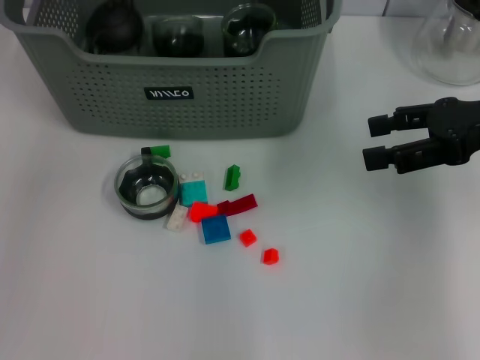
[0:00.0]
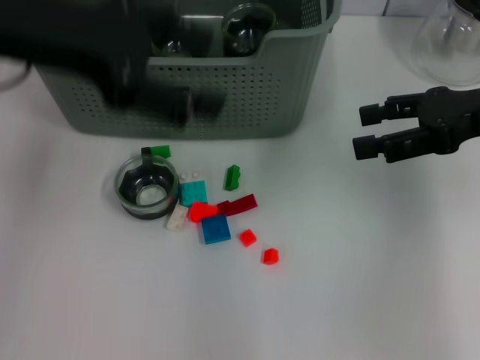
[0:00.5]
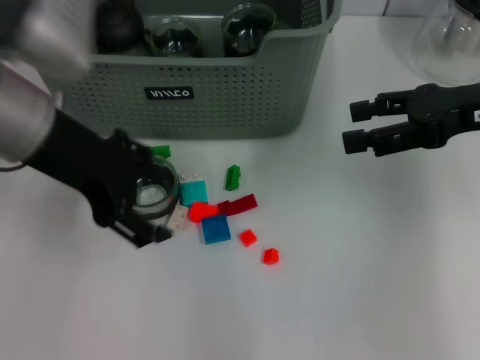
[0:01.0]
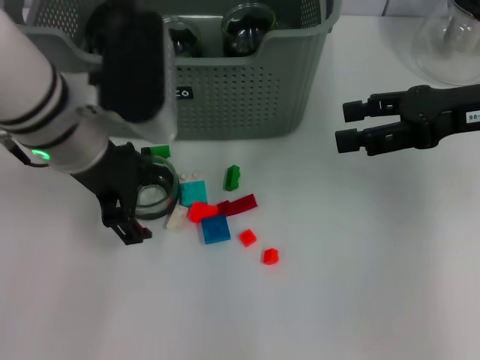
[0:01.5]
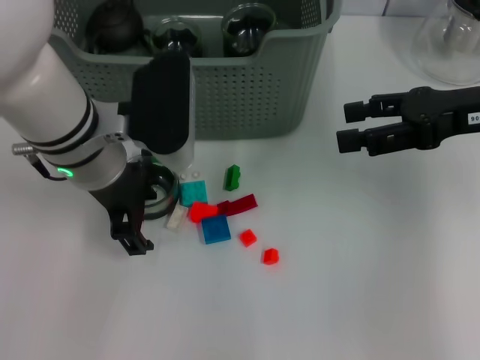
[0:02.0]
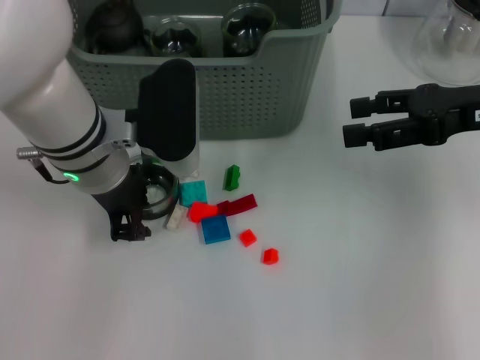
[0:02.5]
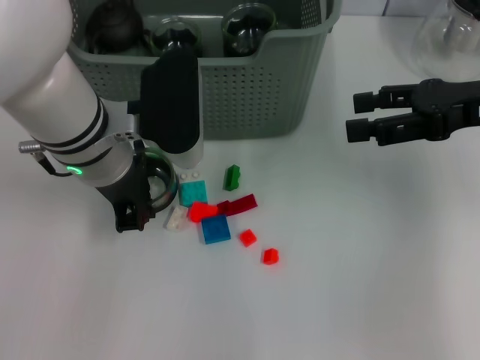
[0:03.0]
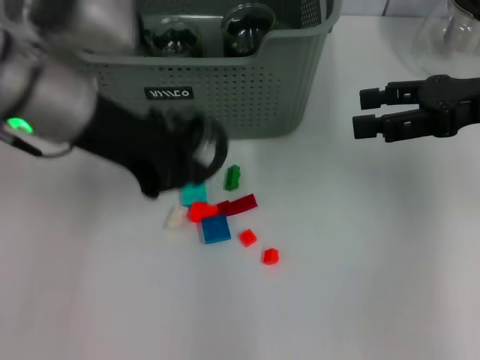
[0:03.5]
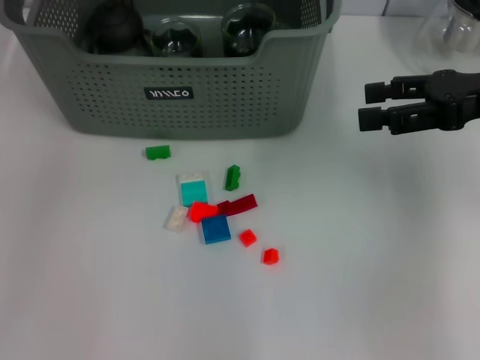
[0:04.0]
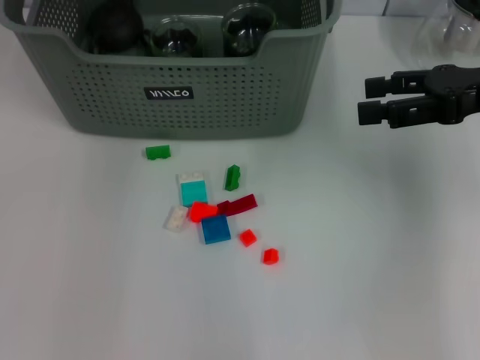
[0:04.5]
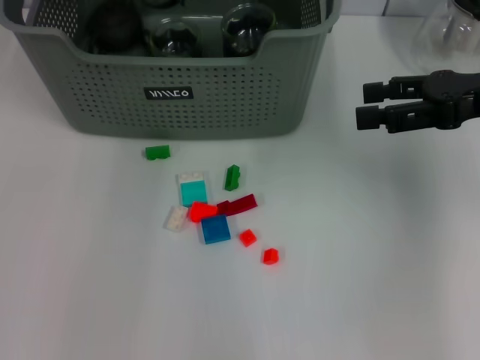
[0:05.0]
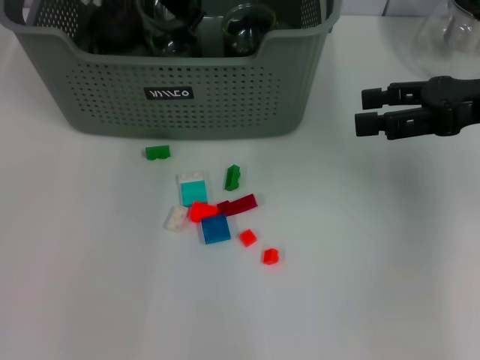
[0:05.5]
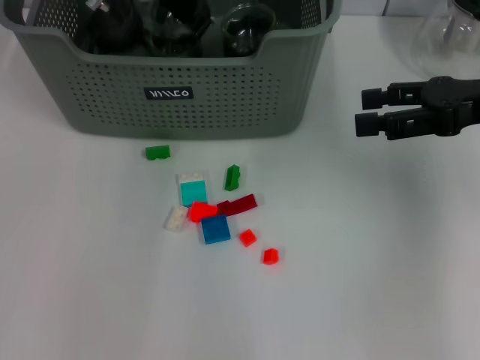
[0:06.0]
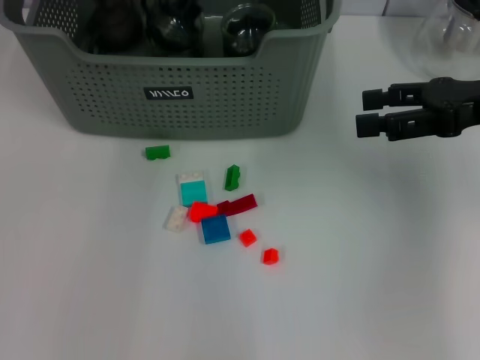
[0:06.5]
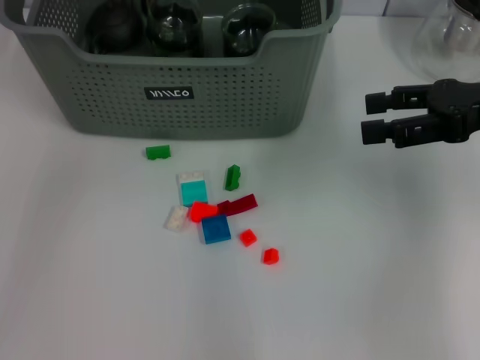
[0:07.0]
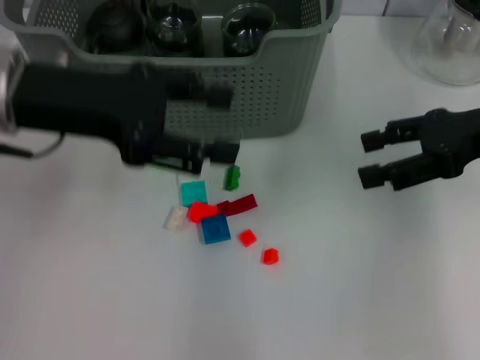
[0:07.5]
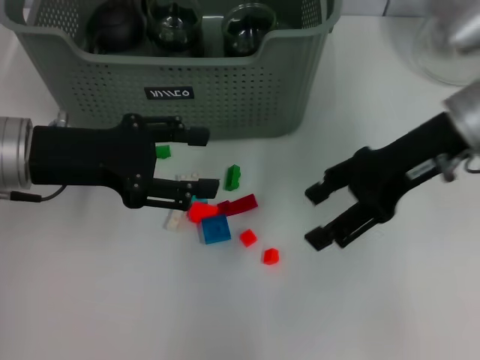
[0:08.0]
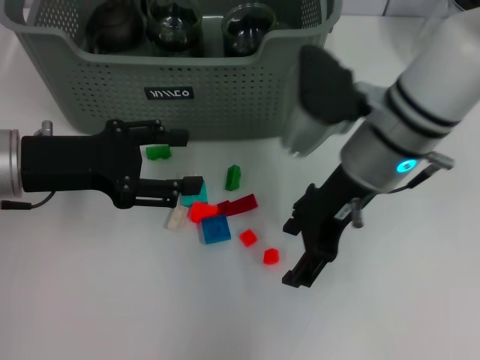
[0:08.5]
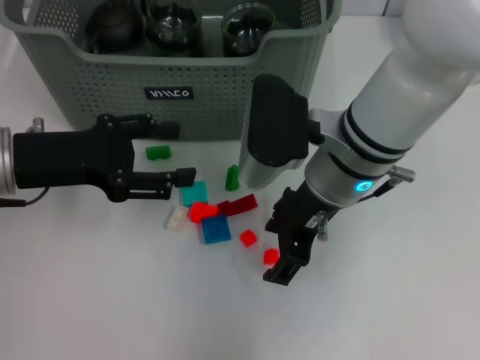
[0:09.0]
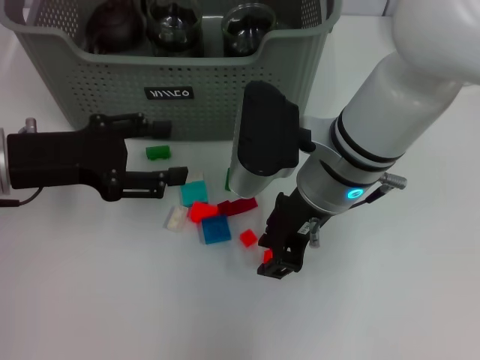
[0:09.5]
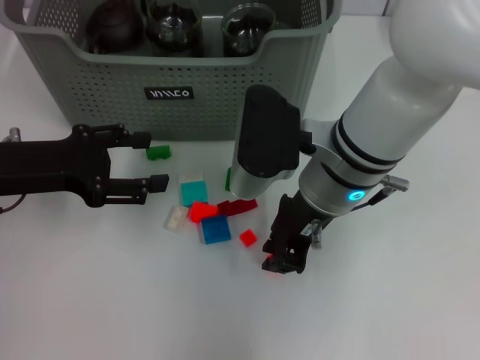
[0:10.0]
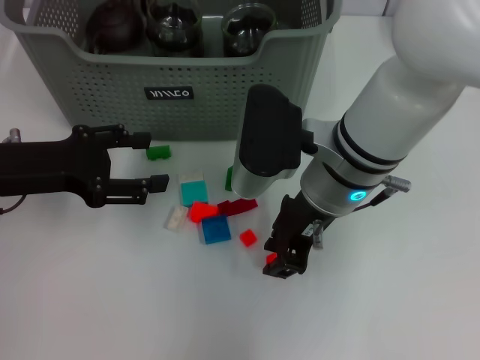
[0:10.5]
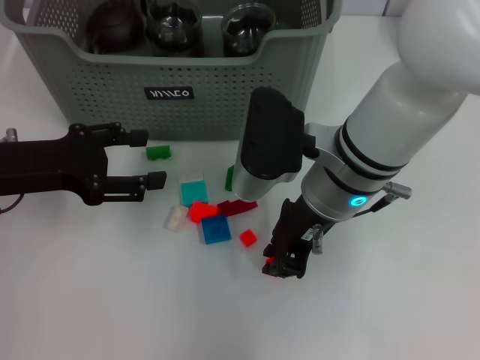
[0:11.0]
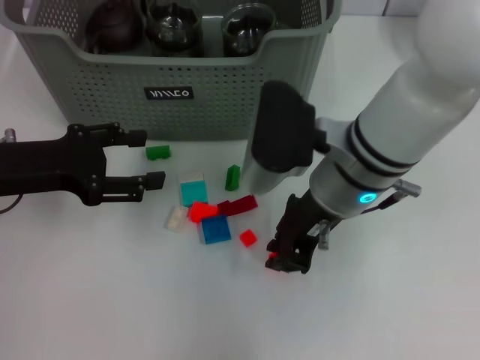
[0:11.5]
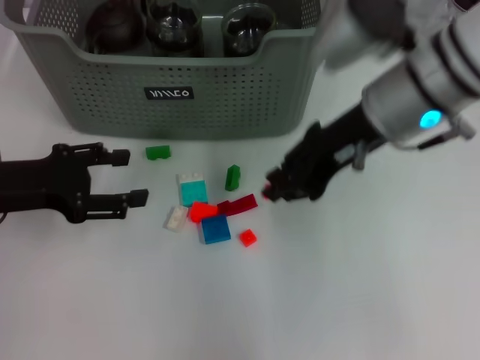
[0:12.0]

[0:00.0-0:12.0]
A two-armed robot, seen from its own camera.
Task of the whole recording: pick up the teacup on the table and place it into the storage bin, pick up the block on the table and place it into the storage bin.
Step, 0:00.0 to 0:02.5: Grasp the cup with left gripper.
Step, 0:03.0 to 0:10.0: Grasp the orange block with right gripper.
0:00.0 to 0:02.0: The left gripper shifts about 20 cm downward and to the right.
0:02.0 to 0:04.0: The left gripper heads upward, to the left and forward, covering some 15 cm, and closes up.
0:04.0 to 0:06.0: The left gripper is displaced to the right, forward and downward by some 15 cm.
0:06.0 to 0:08.0: The right gripper is displaced to the left by roughly 10 cm; the left gripper heads backward and to the left, covering roughly 20 cm, and opens.
0:08.0 to 0:10.0: The right gripper moves to the left, roughly 15 cm, and closes.
0:10.0 to 0:12.0: The right gripper goes about 10 cm upward and to the right.

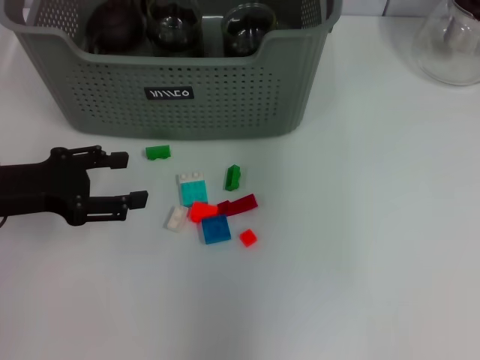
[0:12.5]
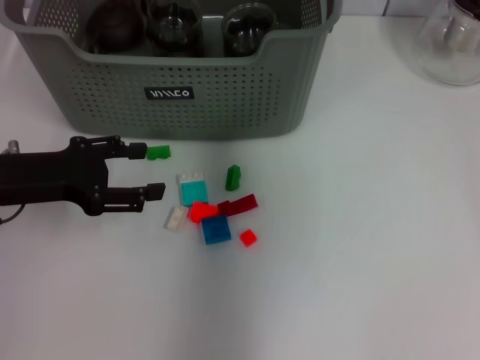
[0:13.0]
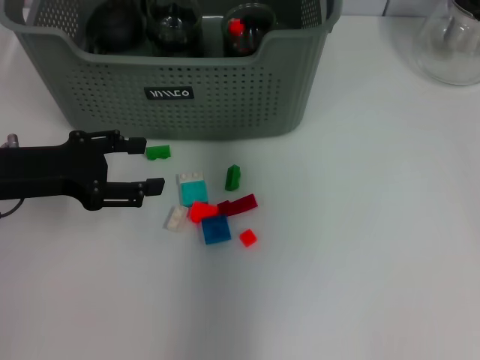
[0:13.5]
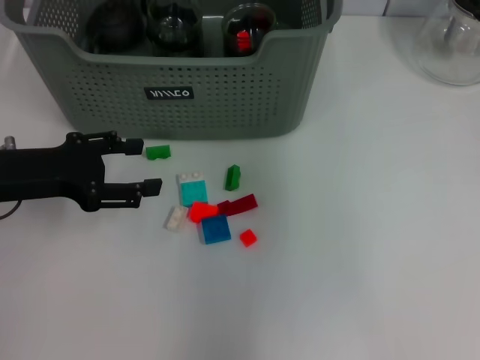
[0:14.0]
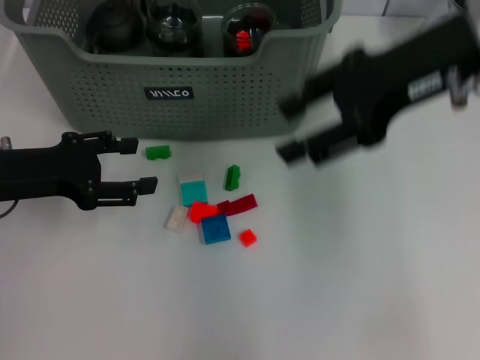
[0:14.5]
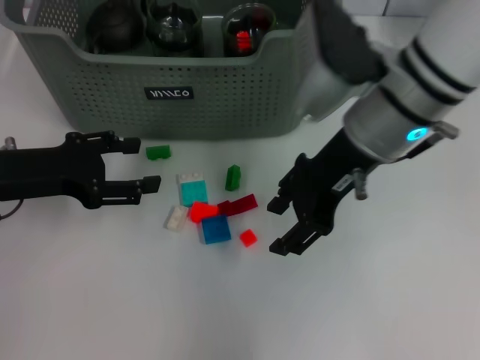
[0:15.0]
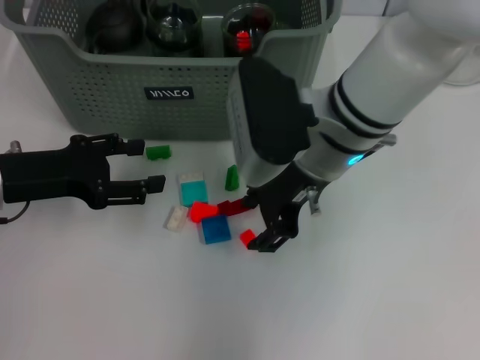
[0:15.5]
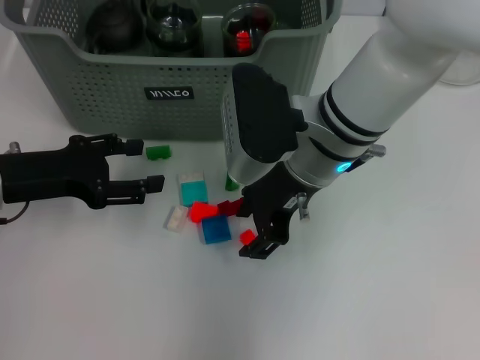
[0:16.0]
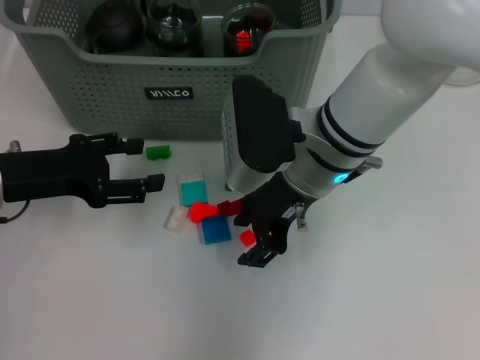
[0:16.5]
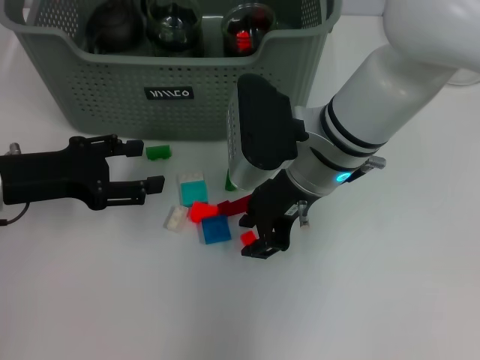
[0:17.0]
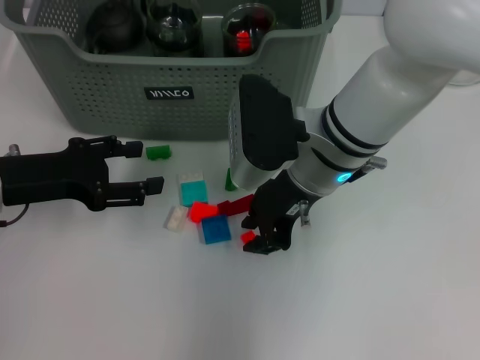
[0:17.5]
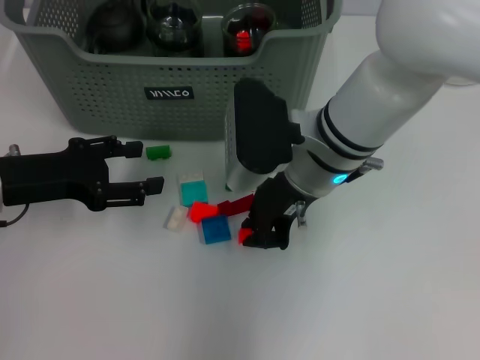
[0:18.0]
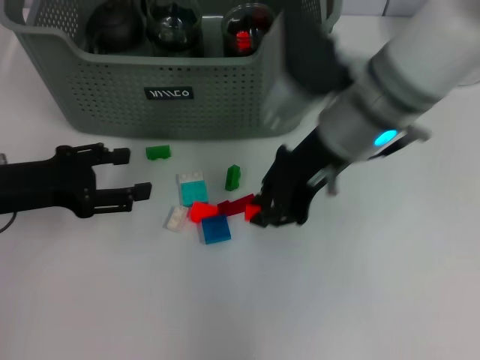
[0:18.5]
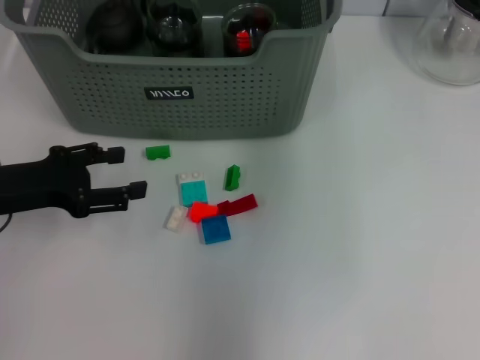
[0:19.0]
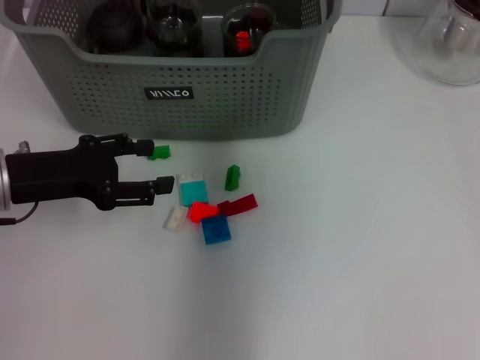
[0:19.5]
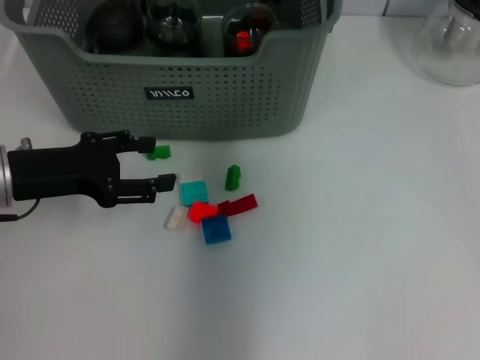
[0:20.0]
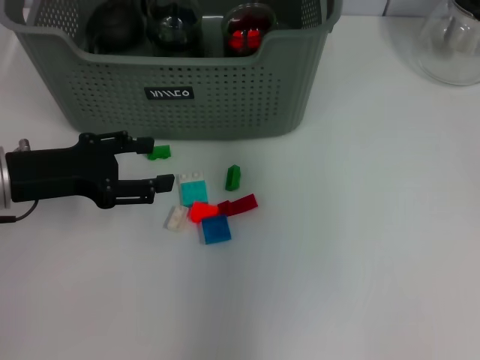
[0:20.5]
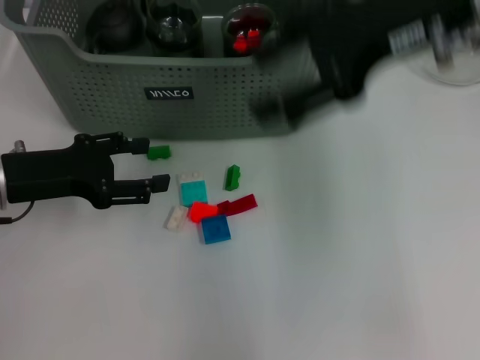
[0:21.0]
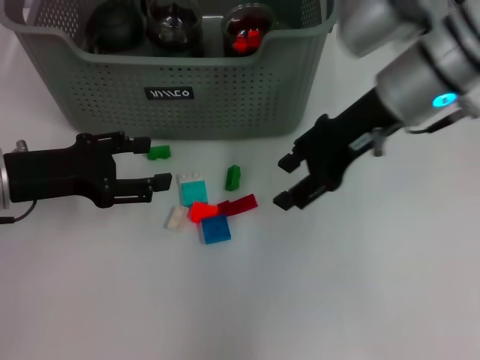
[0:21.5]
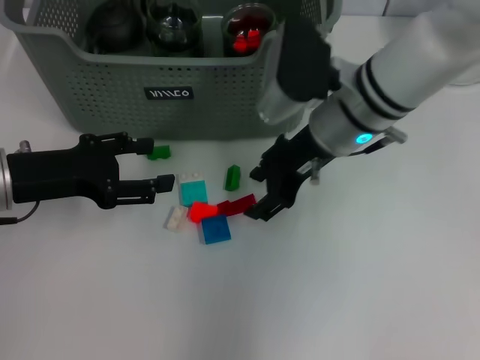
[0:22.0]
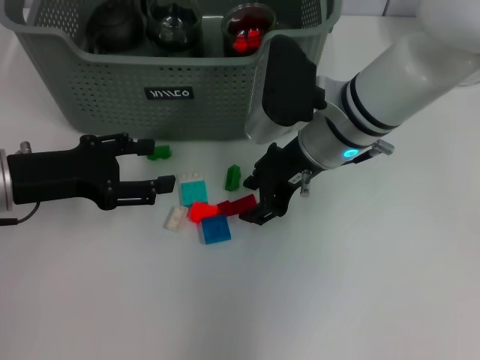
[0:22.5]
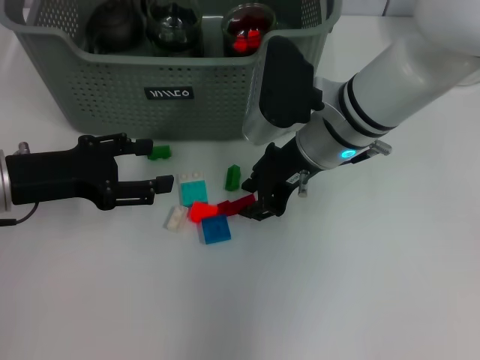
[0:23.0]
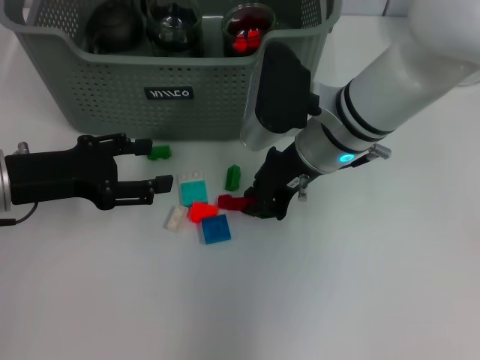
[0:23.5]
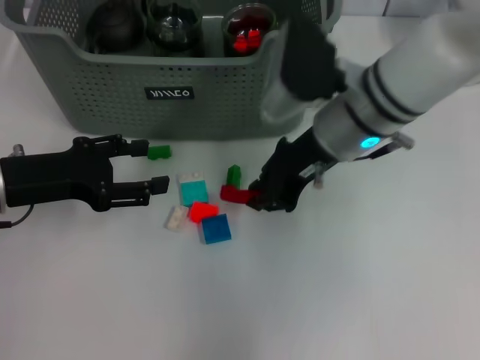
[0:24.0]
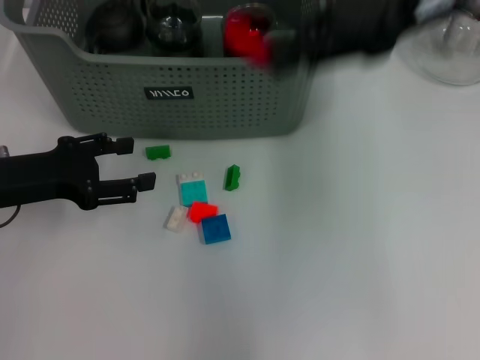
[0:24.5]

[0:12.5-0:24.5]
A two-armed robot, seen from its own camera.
Task of the whole recording: pick up the teacup on the table and place it into the storage bin, pick up the block on the table and place it into the storage bin.
Step, 0:14.0 to 0:17.5: Grasp the orange block with right gripper.
Step, 0:18.0 to 0:20.0: Place the orange block in the storage box with right gripper.
Step, 0:21.0 to 0:23.5: Grasp the red block with right gripper.
0:12.5 to 0:14.5: The right gripper is displaced downward and backward by roughly 10 cm, and opens up.
0:14.5 to 0:16.5: The right gripper moves downward and to the left, about 20 cm.
0:16.5 to 0:18.5: The right gripper ends up some 5 cm from where it was, and closes its fingers.
0:18.5 to 0:20.5: The right gripper goes up and down, approximately 15 cm each way, reversing 2 times, and opens its fingers.
0:20.5 to 0:22.5: The right gripper moves downward, some 15 cm.
0:22.5 to 0:24.5: The right gripper moves upward and to the right, approximately 20 cm, and closes.

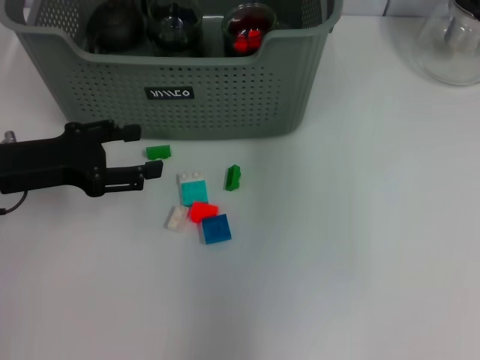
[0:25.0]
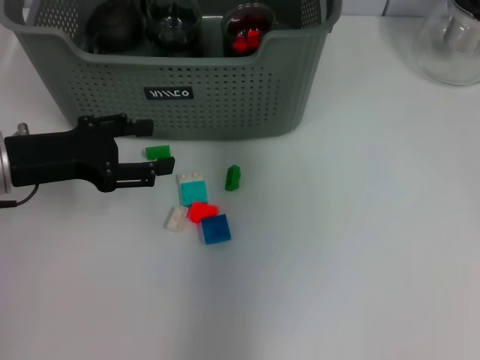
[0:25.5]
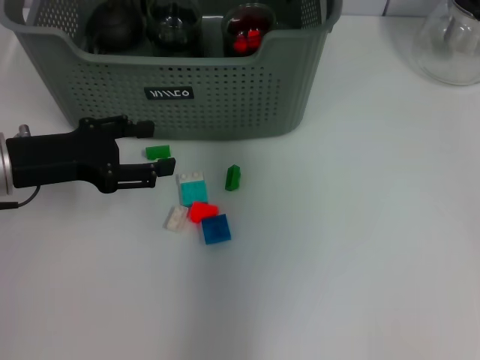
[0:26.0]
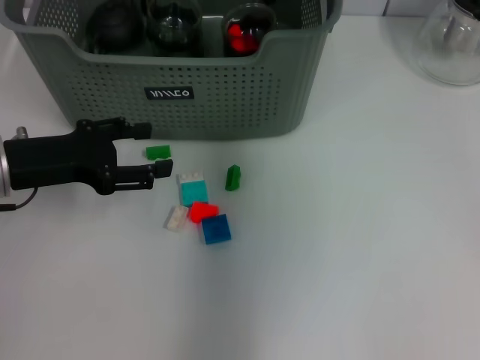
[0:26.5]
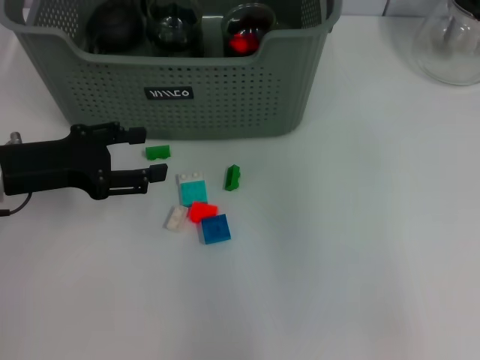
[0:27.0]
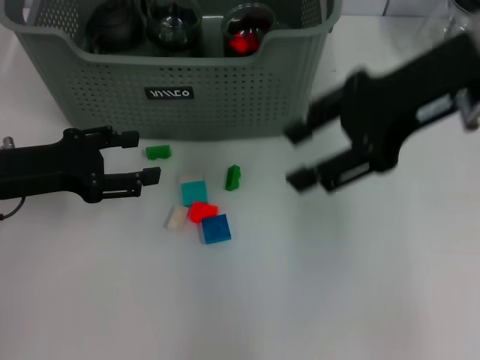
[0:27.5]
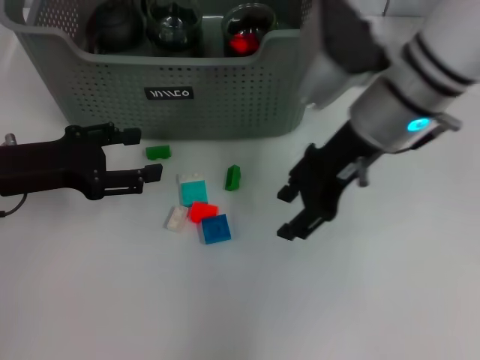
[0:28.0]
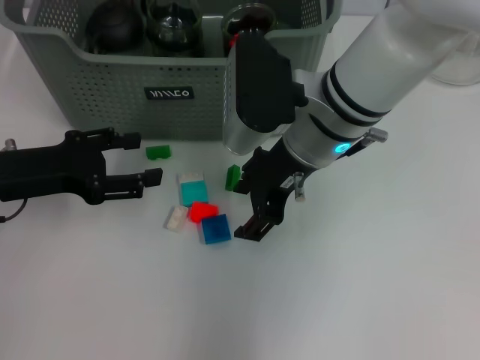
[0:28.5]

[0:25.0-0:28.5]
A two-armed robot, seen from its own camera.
Task of the whole recording: pick up the teacup on the table and place it into the storage bin, pick up the block on the table and place it into the storage bin.
0:27.0 to 0:28.5: The right gripper shifts about 20 cm downward and to the left.
